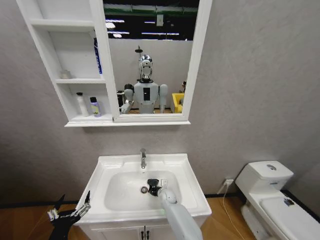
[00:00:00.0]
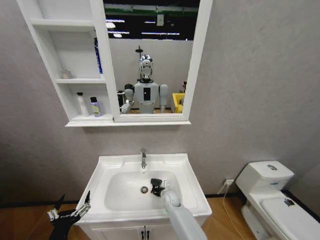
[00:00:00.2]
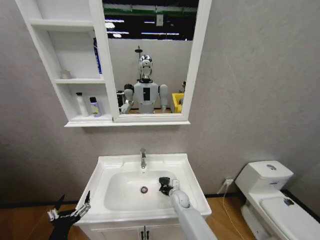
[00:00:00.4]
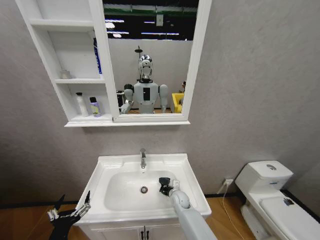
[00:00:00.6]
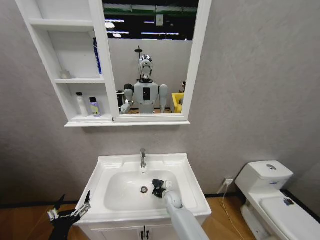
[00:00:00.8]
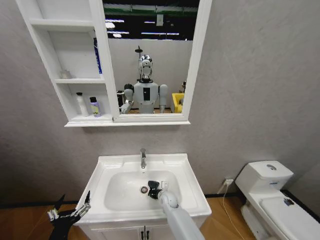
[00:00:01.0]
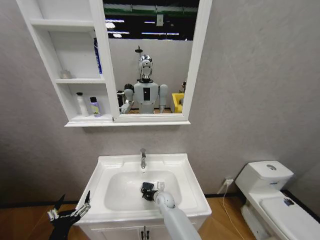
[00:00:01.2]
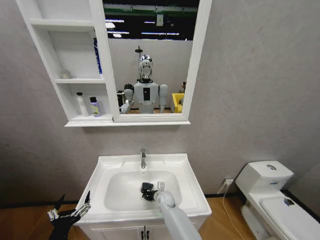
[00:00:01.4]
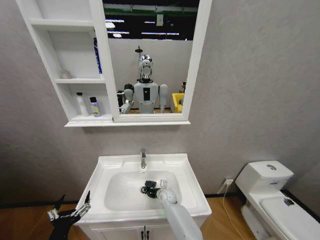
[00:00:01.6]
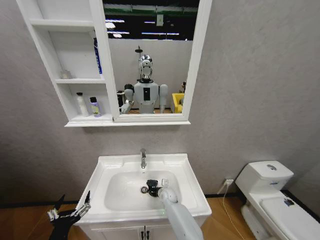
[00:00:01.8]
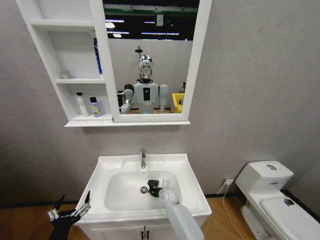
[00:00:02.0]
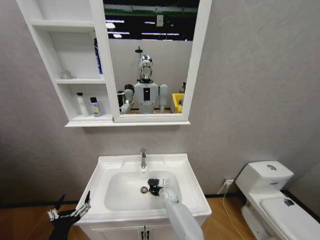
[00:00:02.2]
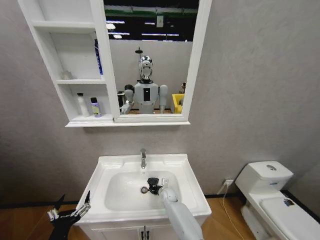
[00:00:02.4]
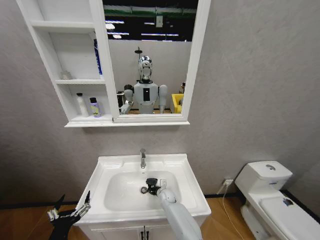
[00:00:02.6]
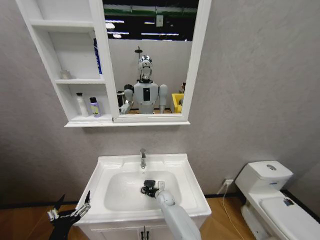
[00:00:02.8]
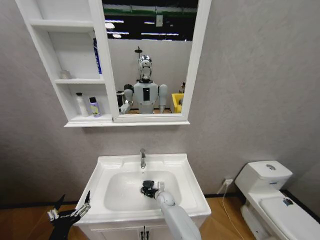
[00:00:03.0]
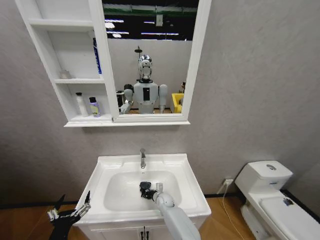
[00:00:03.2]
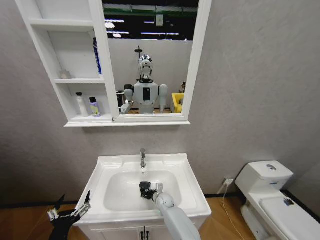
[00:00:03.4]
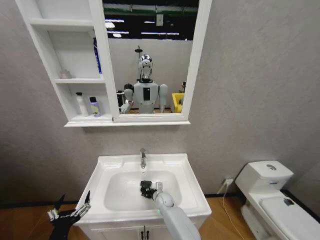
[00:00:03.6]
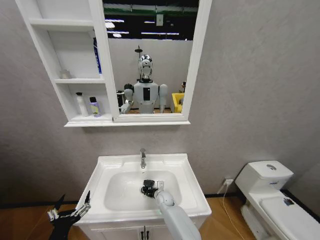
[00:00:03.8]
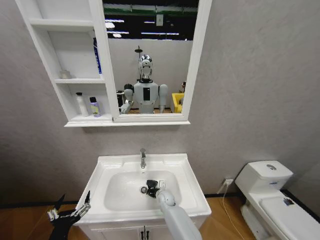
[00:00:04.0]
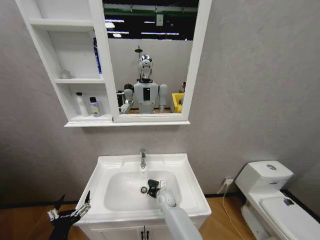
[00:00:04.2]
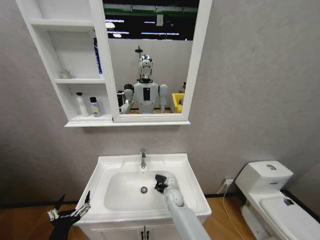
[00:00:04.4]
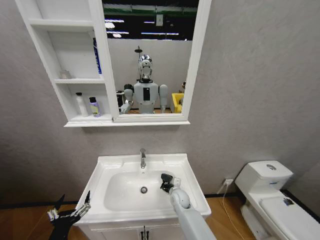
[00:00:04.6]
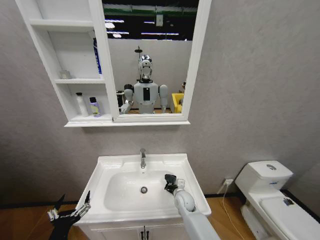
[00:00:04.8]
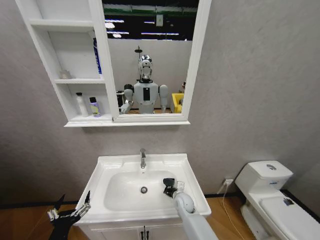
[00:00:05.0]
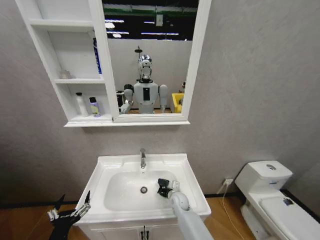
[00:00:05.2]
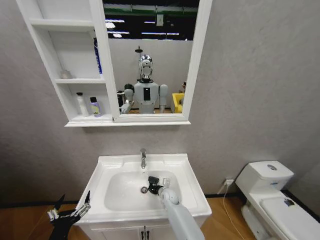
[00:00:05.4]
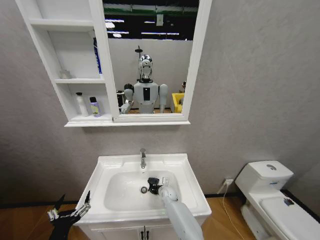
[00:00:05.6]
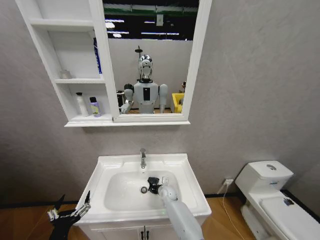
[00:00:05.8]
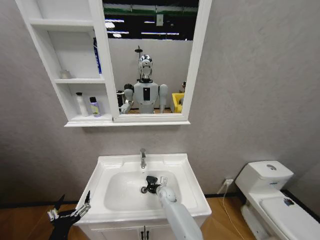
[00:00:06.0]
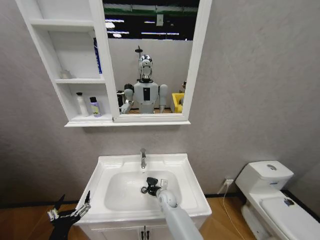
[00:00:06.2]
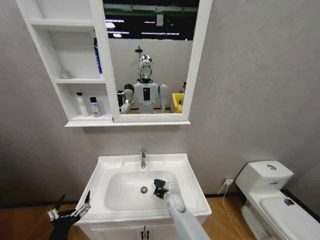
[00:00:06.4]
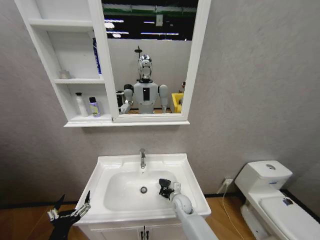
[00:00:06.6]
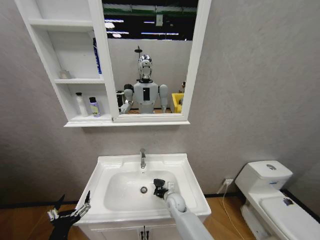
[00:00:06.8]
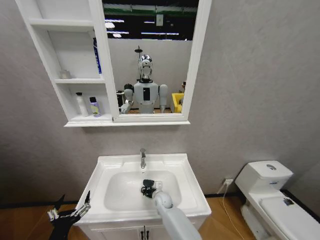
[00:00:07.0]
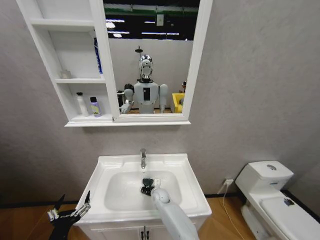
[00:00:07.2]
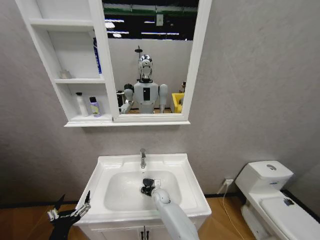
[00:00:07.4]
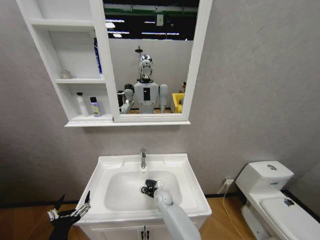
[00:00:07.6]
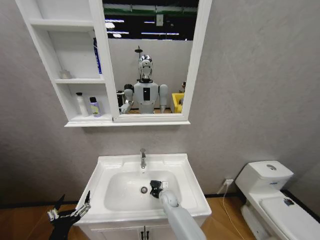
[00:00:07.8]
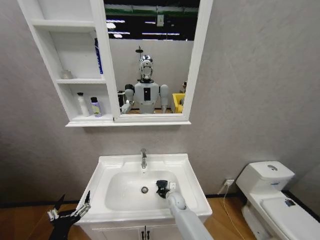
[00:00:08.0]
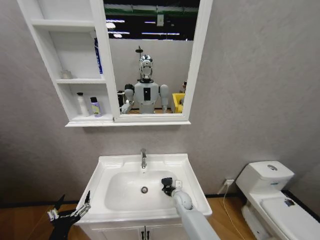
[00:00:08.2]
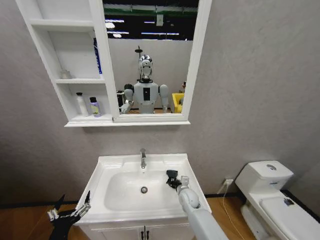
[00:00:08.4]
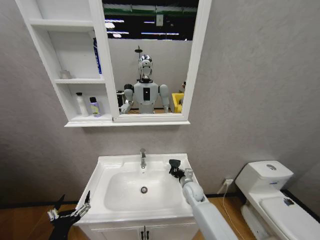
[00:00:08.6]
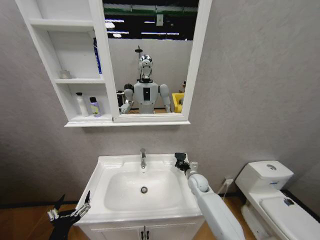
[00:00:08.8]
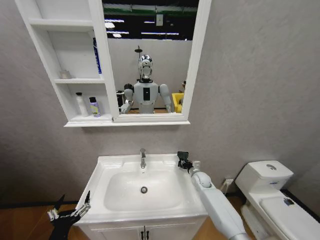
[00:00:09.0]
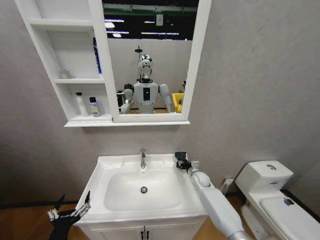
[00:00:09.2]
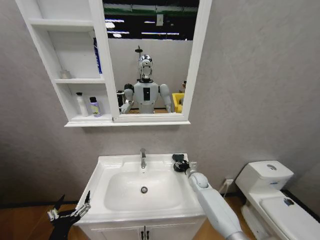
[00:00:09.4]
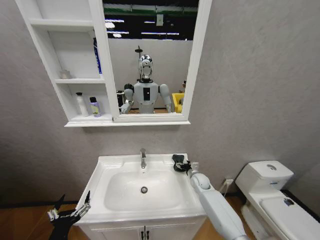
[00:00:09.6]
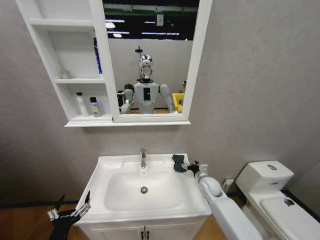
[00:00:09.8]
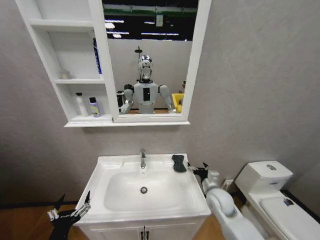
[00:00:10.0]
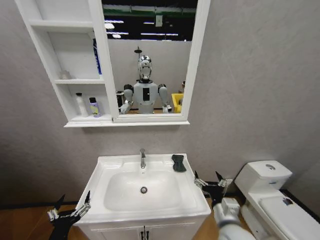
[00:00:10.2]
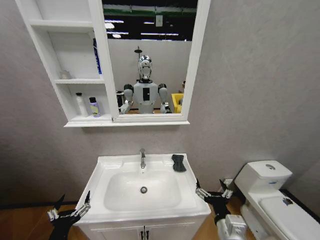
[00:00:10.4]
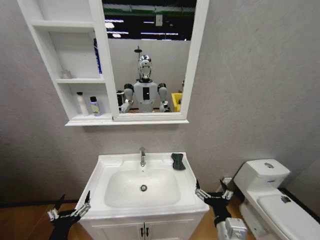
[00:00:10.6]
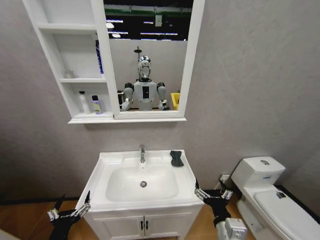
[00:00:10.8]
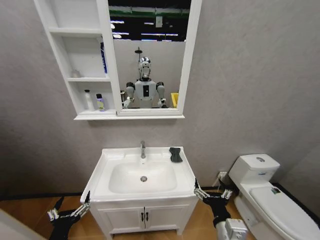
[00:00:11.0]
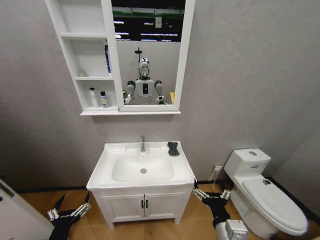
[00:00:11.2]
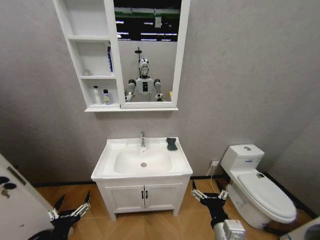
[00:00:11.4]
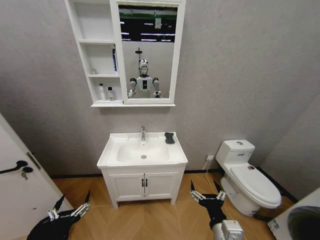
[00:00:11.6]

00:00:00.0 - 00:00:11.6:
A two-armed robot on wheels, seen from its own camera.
Task of the whole recording: Move facial cleanser and shampoo from washbasin to cabinet, then wipe washbasin with towel.
00:00:00.0 - 00:00:01.4: The right gripper reaches about 5 cm to the right, then returns.
00:00:01.4 - 00:00:02.8: The grippers stay close to where they were, moving slightly.
00:00:02.8 - 00:00:04.4: The right gripper shifts about 5 cm upward.
00:00:07.2 - 00:00:08.8: The right gripper is displaced to the right and upward by some 25 cm.
00:00:08.8 - 00:00:10.2: The right gripper shifts some 25 cm backward, and opens up.
00:00:10.2 - 00:00:11.6: The right gripper is displaced backward by about 5 cm.

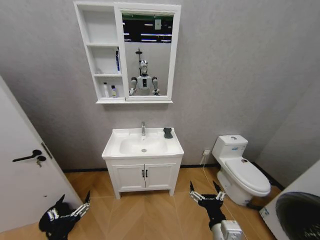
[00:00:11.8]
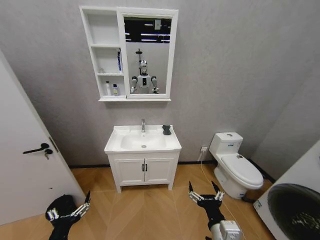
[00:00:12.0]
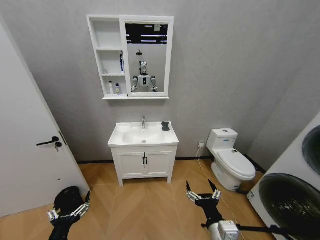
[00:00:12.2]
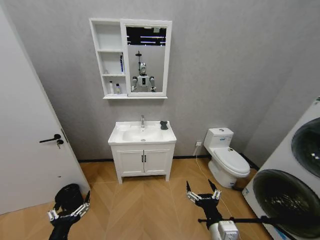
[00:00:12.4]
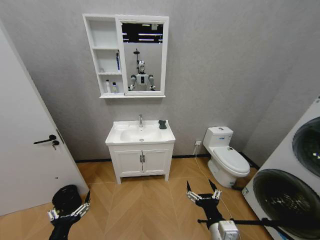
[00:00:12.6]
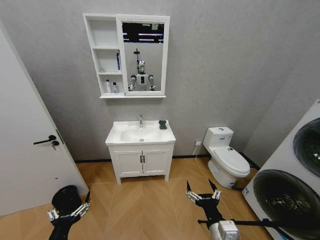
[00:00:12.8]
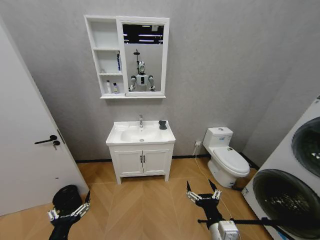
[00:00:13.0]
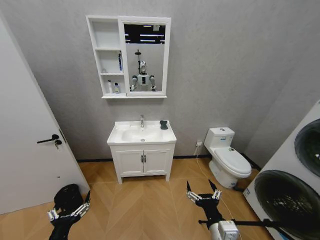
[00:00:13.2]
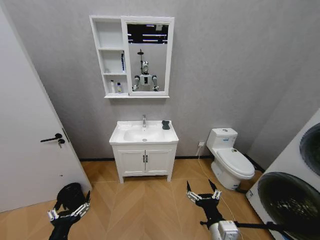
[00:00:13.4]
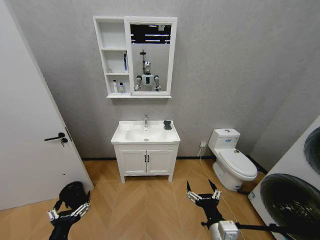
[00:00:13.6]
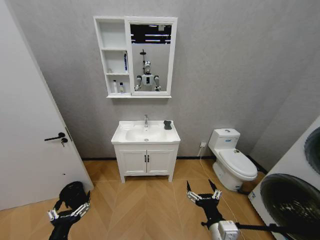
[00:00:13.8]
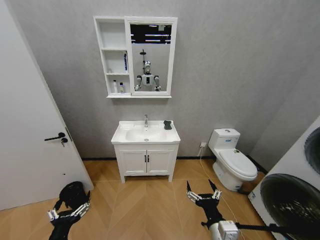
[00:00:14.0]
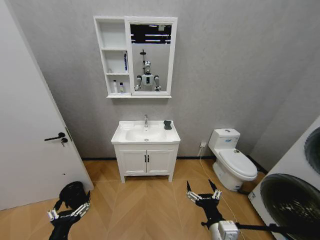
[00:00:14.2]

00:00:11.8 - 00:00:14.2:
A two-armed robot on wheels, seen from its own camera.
Task of the whole recording: Move facial cleanser and shampoo from washbasin to cabinet, then wipe washbasin with towel.
00:00:13.0 - 00:00:14.2: Both grippers stay put.
